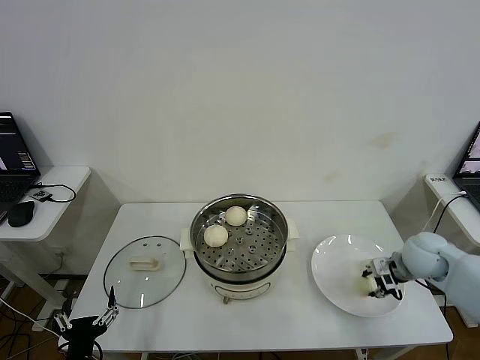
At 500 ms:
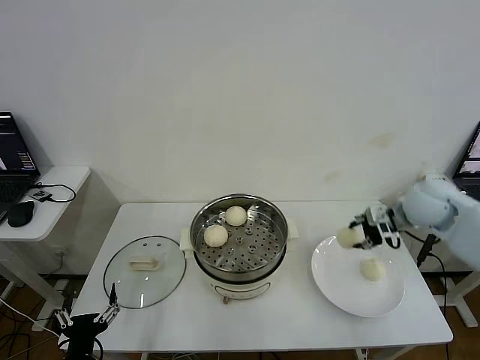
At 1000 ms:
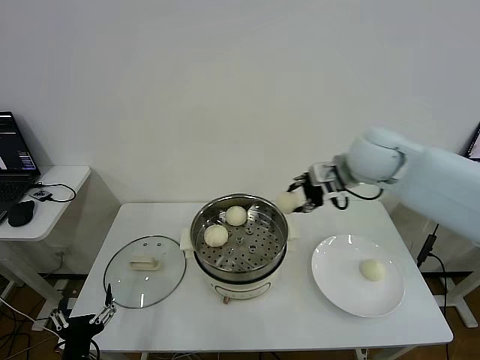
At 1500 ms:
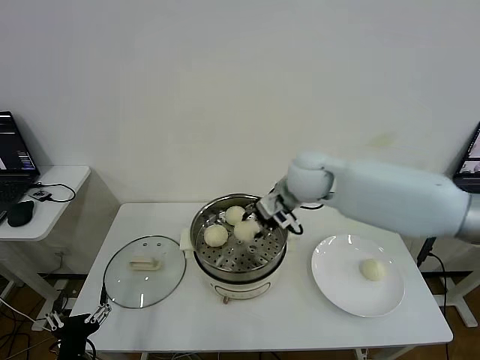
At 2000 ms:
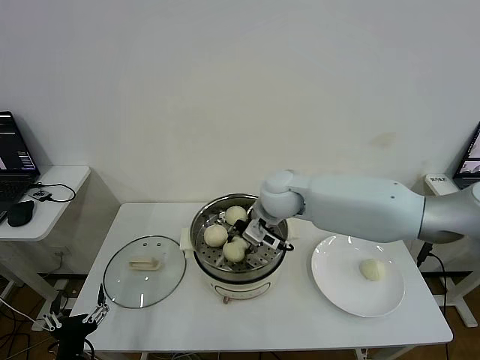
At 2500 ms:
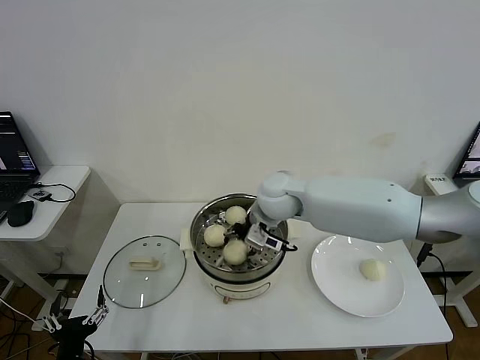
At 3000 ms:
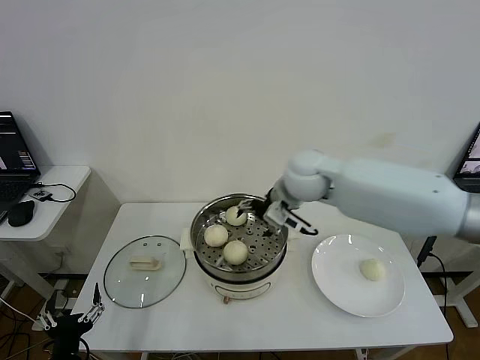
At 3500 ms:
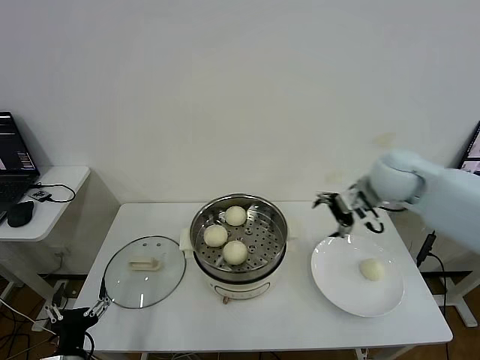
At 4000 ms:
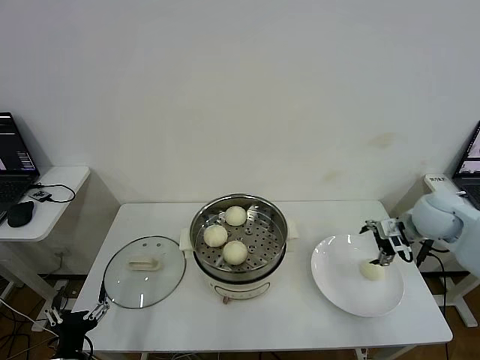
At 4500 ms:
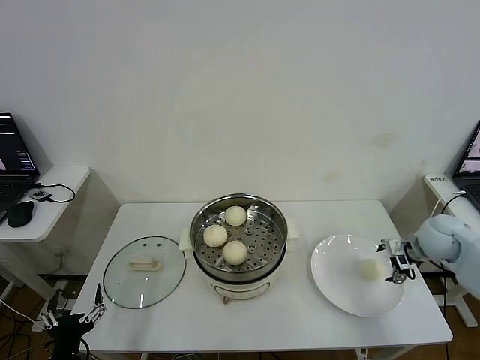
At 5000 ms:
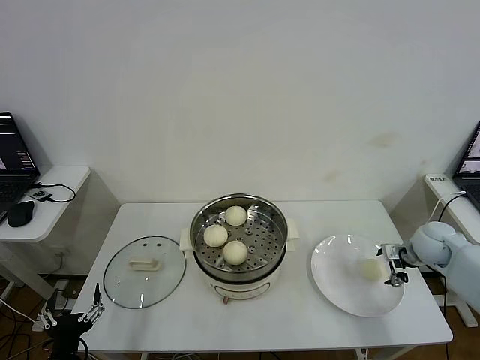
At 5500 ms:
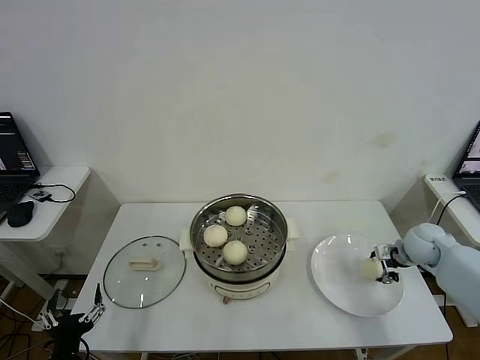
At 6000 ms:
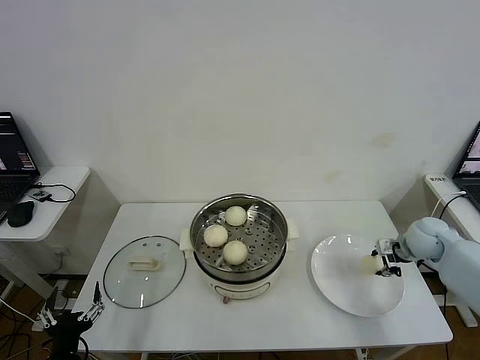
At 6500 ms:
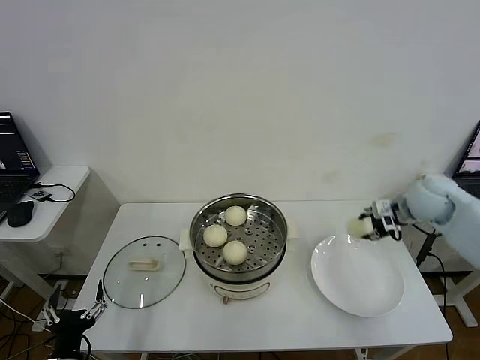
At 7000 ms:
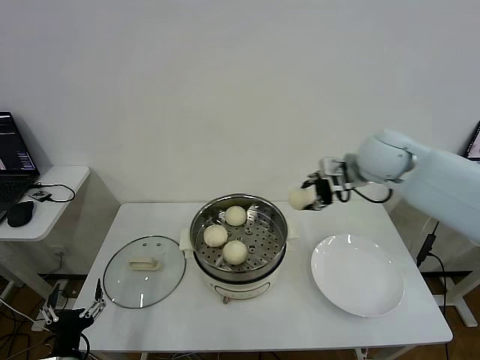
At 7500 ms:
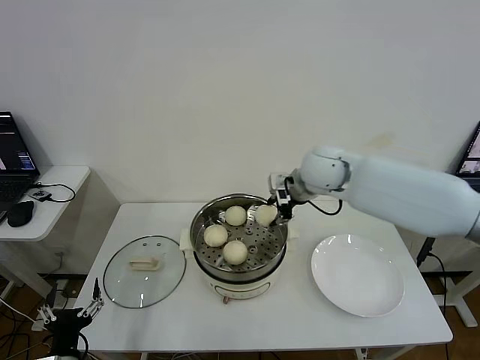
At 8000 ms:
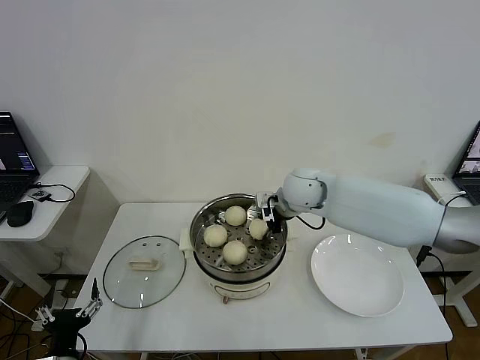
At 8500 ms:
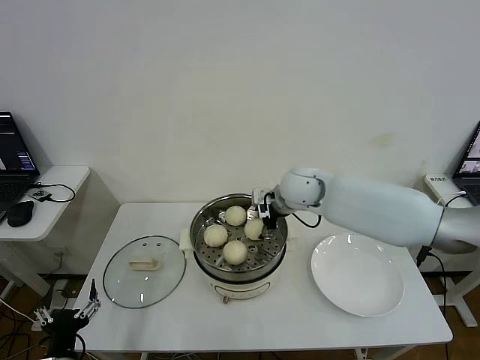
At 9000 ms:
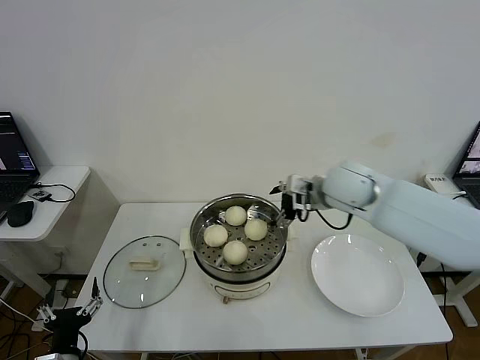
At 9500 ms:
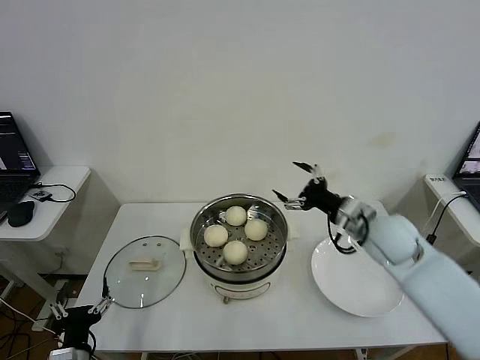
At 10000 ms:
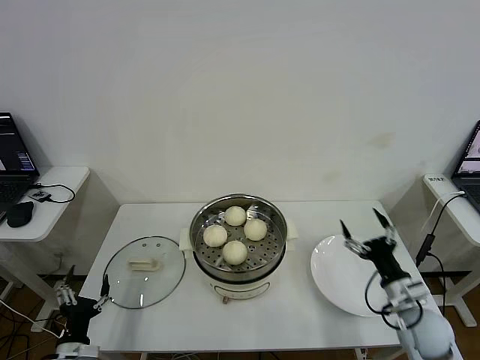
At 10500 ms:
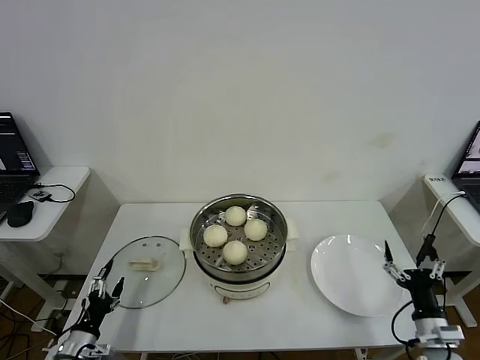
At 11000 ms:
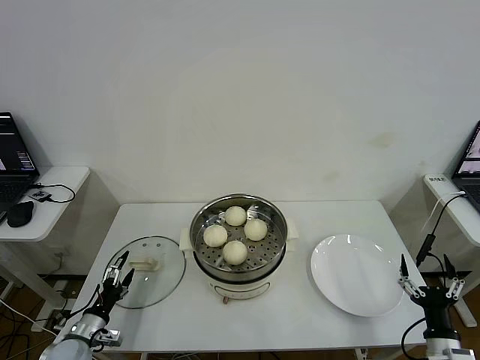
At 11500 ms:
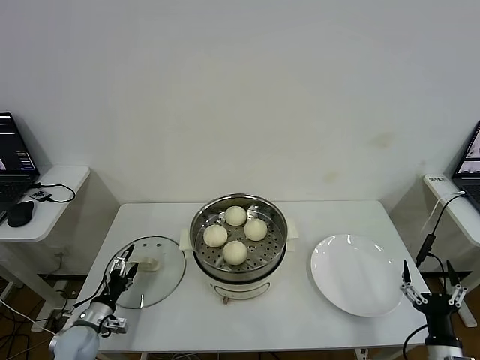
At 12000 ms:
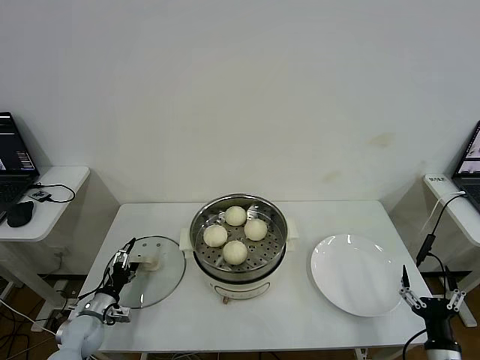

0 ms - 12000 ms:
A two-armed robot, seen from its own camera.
Step, 0 ms - 2500 ms: Place the baozi on the steamer with right gripper.
Step, 3000 ms - 5500 ms: Grasp the baozi in the plate with right gripper.
Step, 6000 ms - 8000 ms: Place the baozi on the steamer with right gripper.
0 ms - 2000 ms: The right gripper travels to the left by roughly 30 cm.
2000 ms - 4000 ms: The right gripper heads to the right, covering roughly 35 cm, and opens.
4000 ms - 6000 ms: The right gripper travels downward by about 10 cm, and closes.
6000 ms - 8000 ms: The right gripper heads to the left, covering approximately 30 cm.
8000 ms - 10000 ms: The left gripper changes place by some 5 cm. The right gripper shifts approximately 40 cm backward, to the right and downward, and opens.
10000 ms - 12000 ms: The right gripper heads backward and downward, covering about 15 cm; the left gripper moves forward and downward, approximately 15 cm.

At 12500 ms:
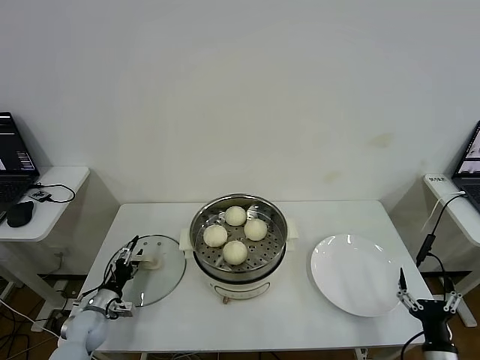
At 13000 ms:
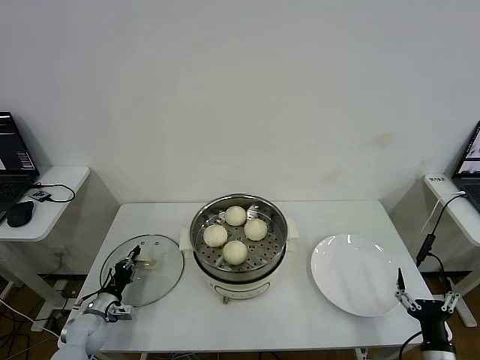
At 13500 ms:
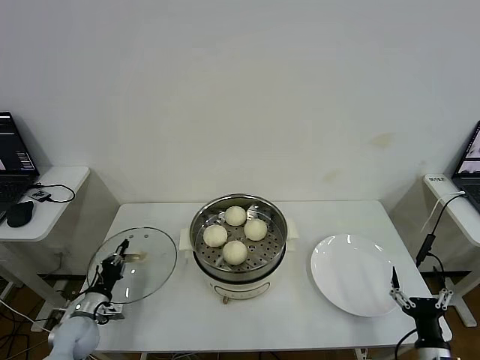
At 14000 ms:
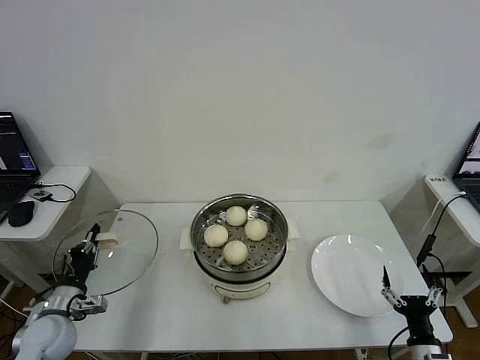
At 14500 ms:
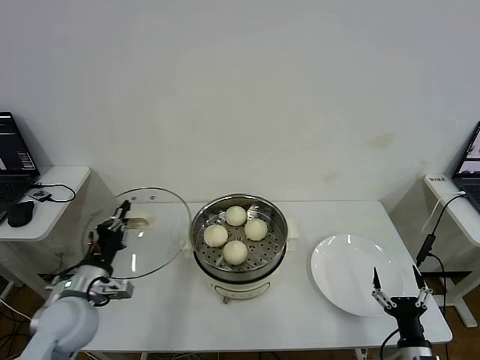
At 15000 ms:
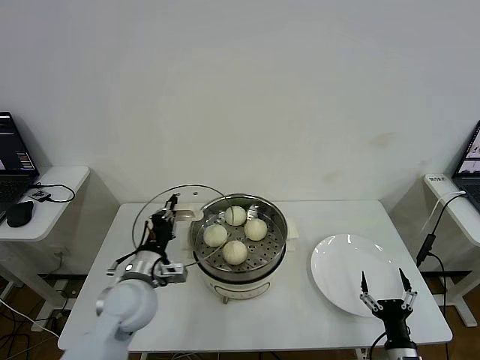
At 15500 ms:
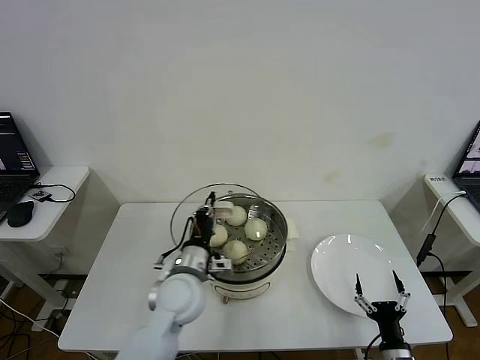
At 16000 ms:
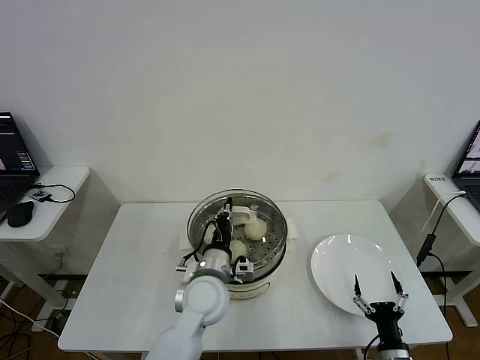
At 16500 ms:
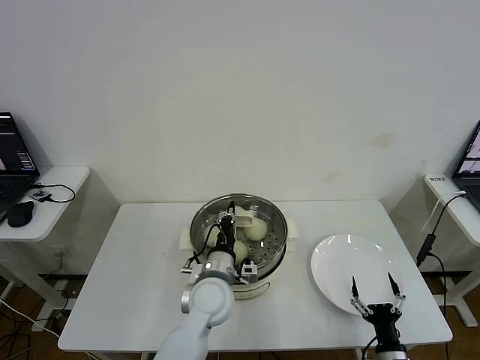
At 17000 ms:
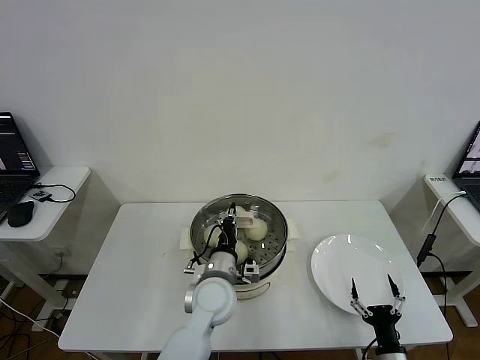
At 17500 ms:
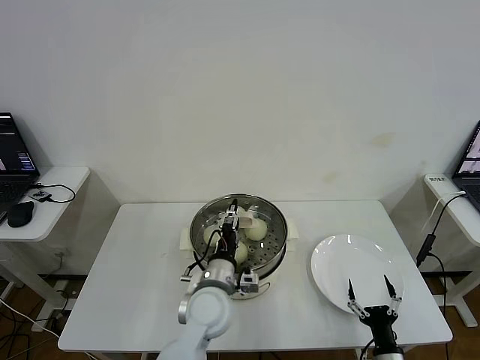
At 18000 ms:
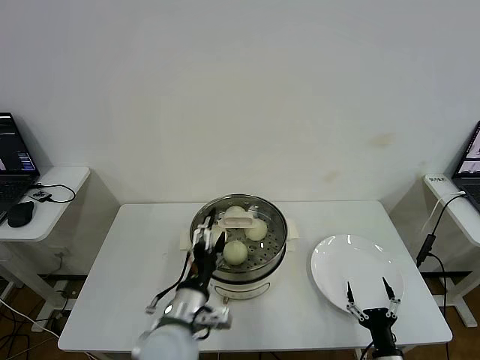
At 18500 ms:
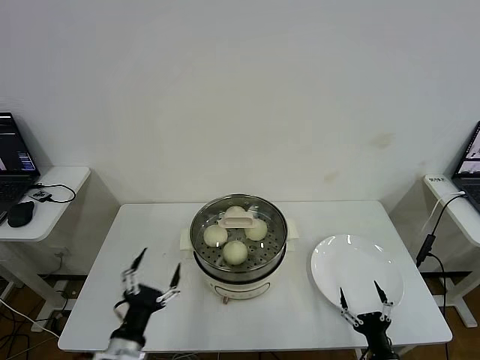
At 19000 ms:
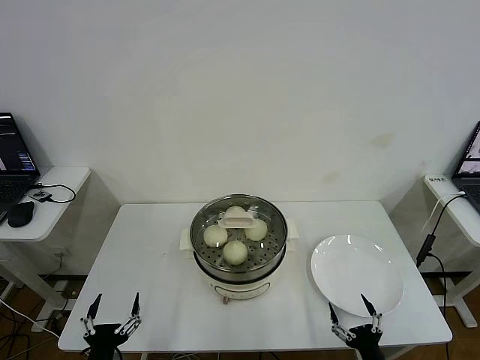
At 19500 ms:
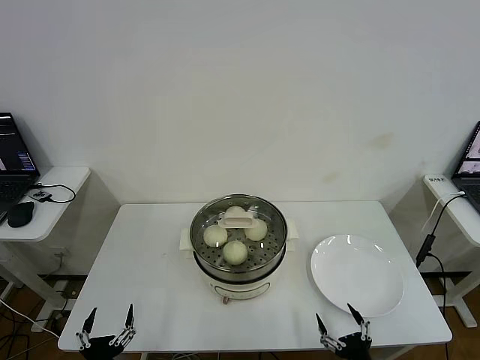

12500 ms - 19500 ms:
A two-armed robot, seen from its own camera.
Step, 13500 ms - 17000 ms: Place the pot lid on the steamer with left gripper.
12500 ms - 14500 ms: The left gripper is displaced upward by approximately 20 cm, and closes its fingers.
14500 ms - 16000 ms: The left gripper moves to the right, about 25 cm.
16000 ms - 17500 ms: The left gripper opens.
17500 ms - 19500 ms: The right gripper moves backward, approximately 5 cm. Meanwhile the left gripper goes approximately 35 cm to the left, backward and downward, and opens.

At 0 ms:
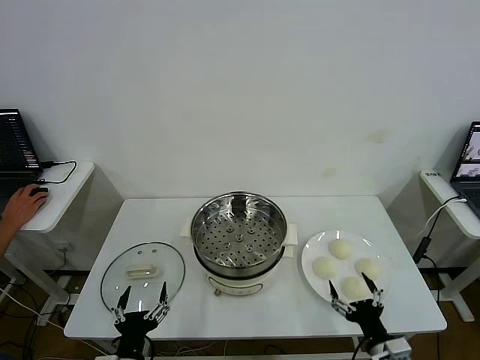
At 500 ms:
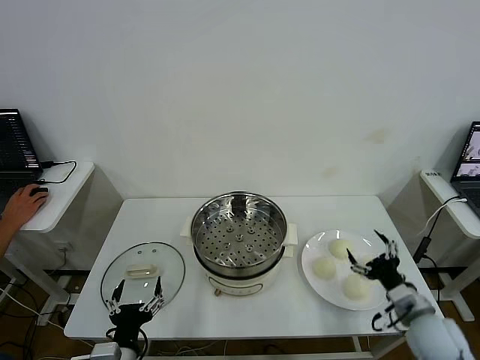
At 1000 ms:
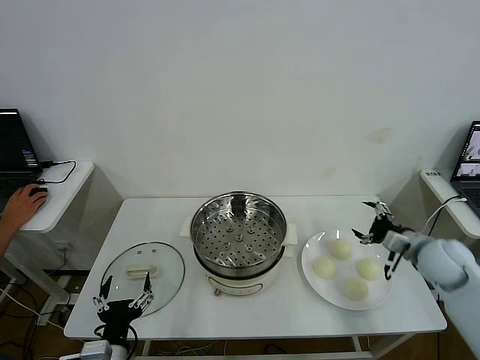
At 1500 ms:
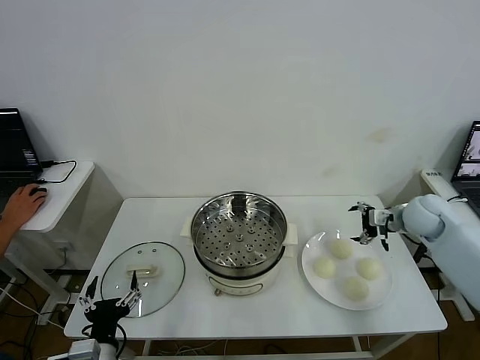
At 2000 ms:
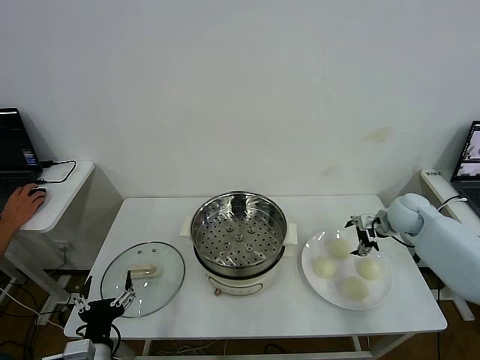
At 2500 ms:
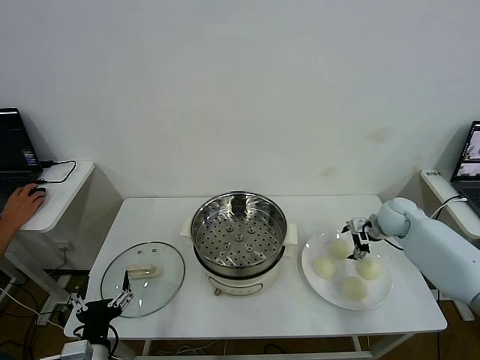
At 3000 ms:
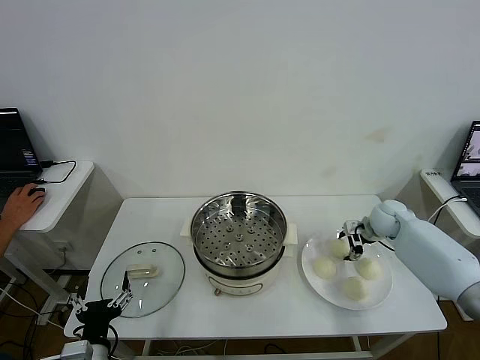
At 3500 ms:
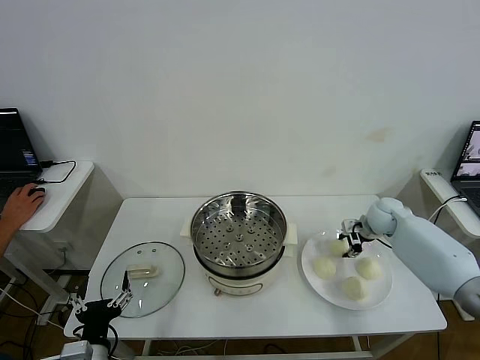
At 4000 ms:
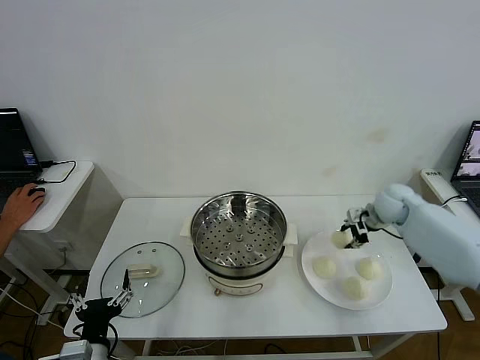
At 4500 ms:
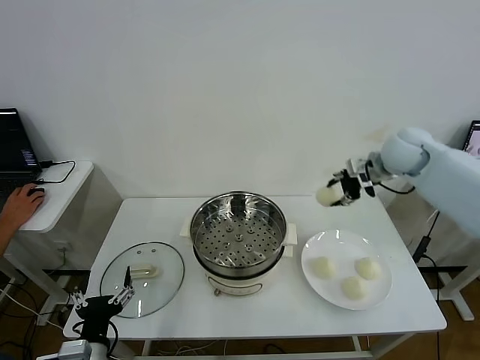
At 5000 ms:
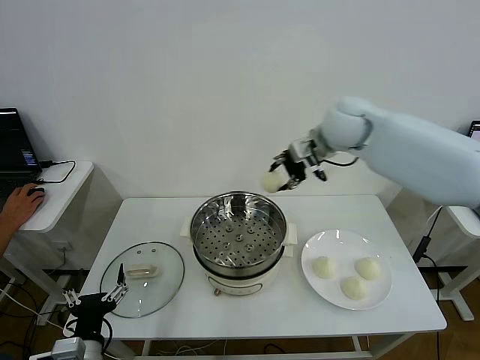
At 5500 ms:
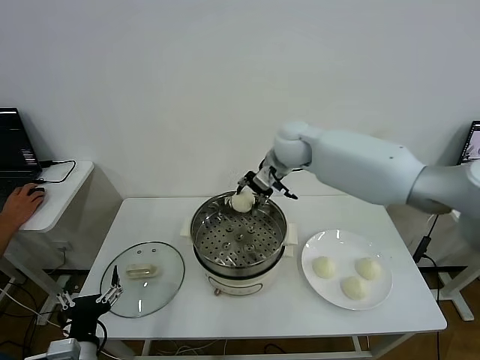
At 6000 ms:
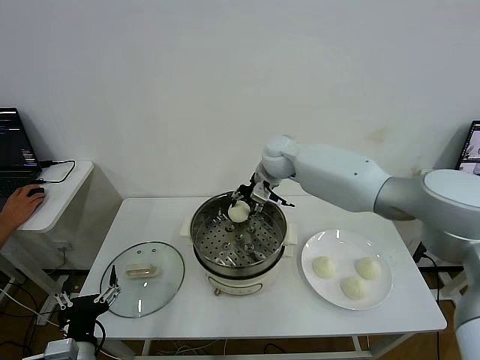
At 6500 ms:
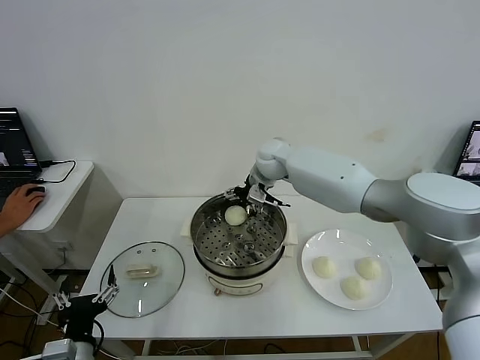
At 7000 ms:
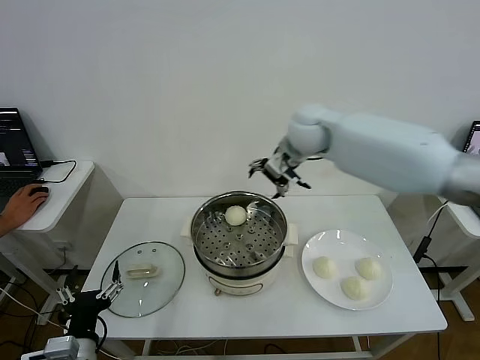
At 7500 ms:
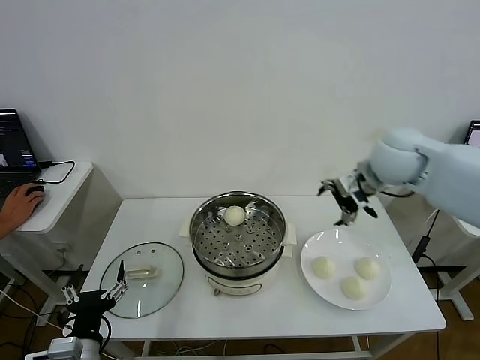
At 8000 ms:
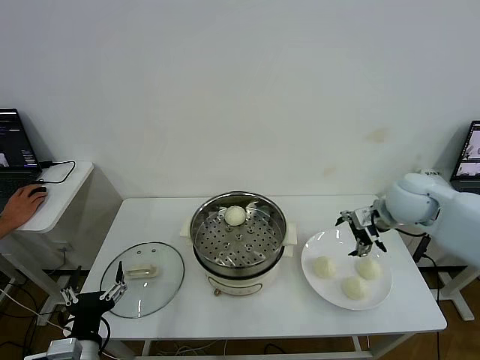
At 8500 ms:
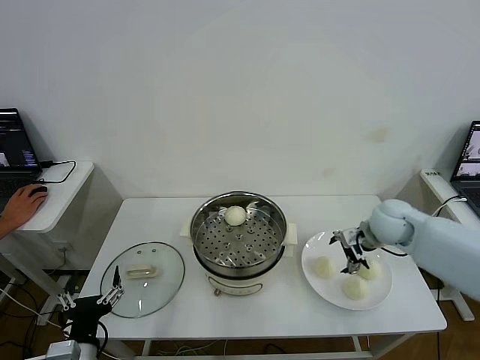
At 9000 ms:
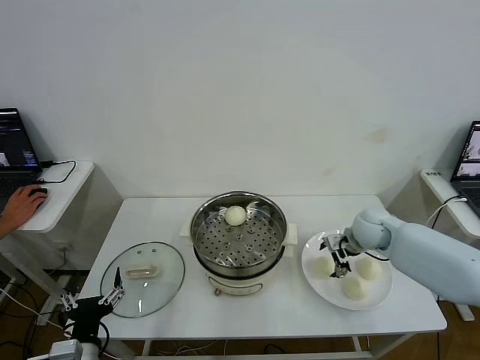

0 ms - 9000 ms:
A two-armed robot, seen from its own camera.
Step, 0 ms - 3000 ms: Grasp the baozi in the plate with right gripper.
Step, 3500 ms - 6500 ms: Place the baozi on the steamer with right gripper.
2000 ms - 4500 ms: The right gripper heads upward and to the left, covering some 25 cm, and closes its fingers.
4500 ms - 7000 ms: The right gripper heads to the left, covering some 15 cm, and opens.
7000 ms - 9000 ms: The right gripper goes approximately 30 cm downward and to the right.
